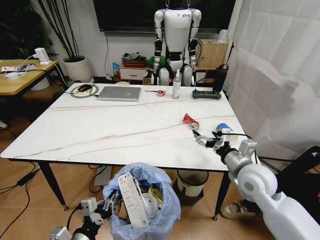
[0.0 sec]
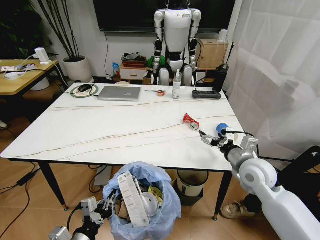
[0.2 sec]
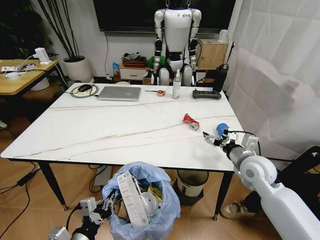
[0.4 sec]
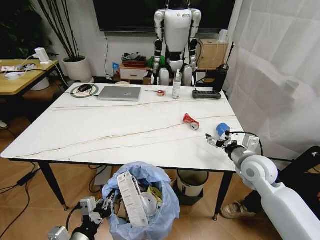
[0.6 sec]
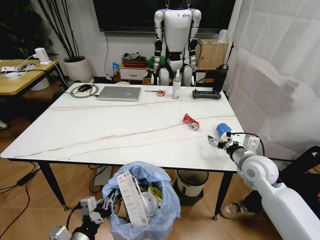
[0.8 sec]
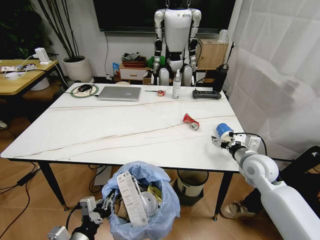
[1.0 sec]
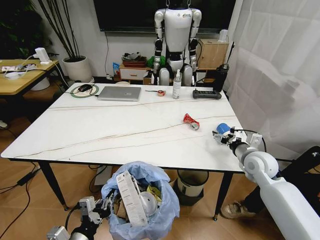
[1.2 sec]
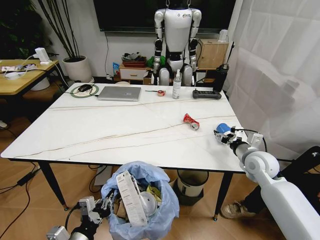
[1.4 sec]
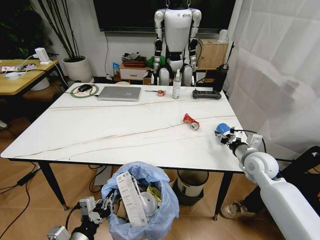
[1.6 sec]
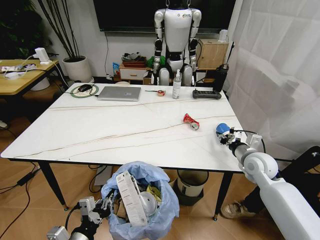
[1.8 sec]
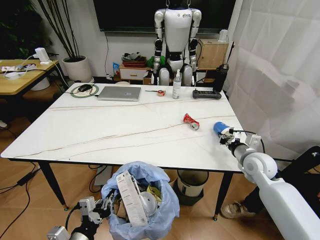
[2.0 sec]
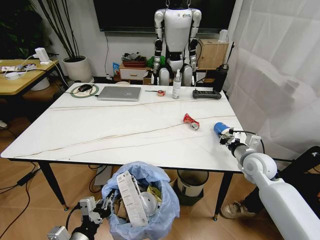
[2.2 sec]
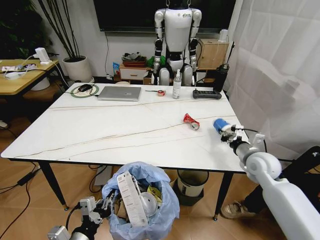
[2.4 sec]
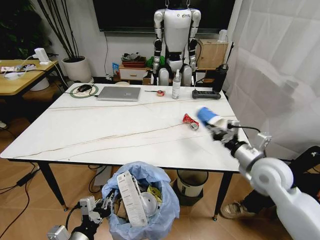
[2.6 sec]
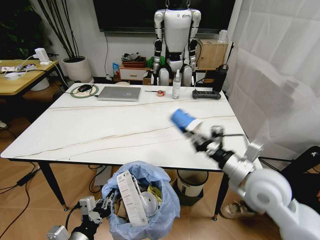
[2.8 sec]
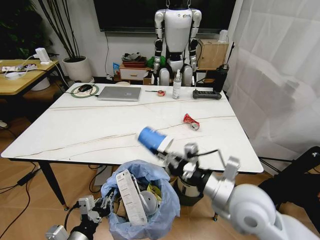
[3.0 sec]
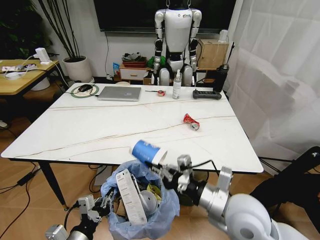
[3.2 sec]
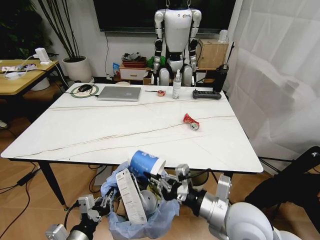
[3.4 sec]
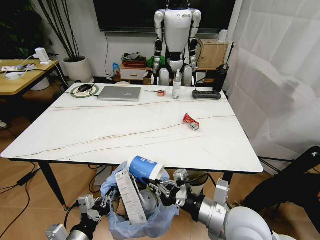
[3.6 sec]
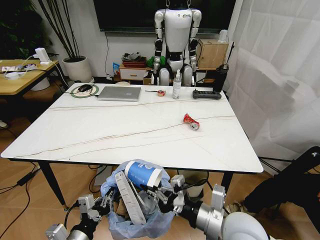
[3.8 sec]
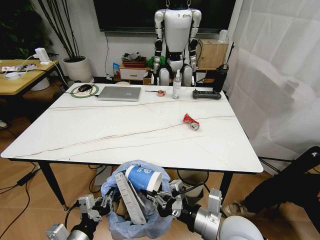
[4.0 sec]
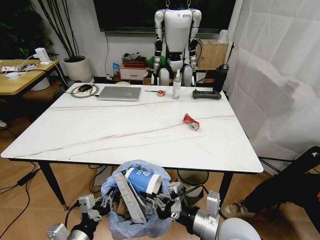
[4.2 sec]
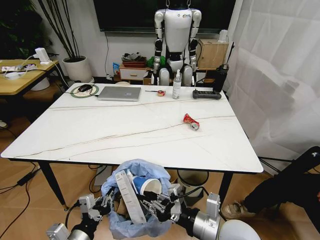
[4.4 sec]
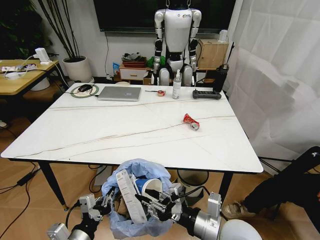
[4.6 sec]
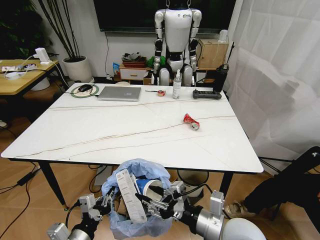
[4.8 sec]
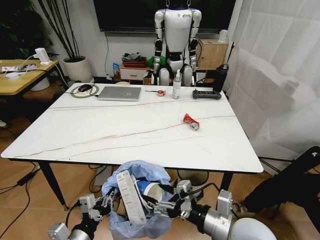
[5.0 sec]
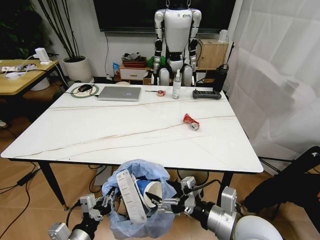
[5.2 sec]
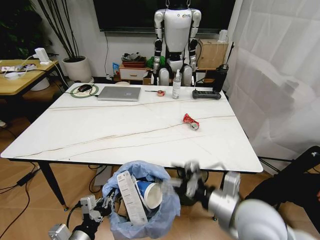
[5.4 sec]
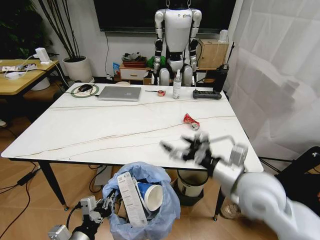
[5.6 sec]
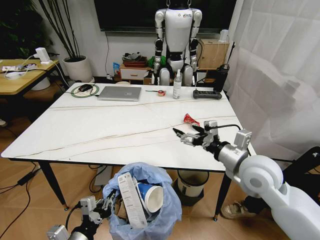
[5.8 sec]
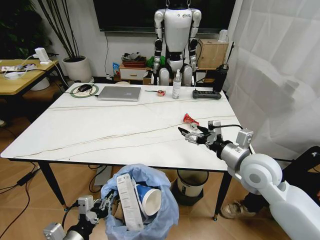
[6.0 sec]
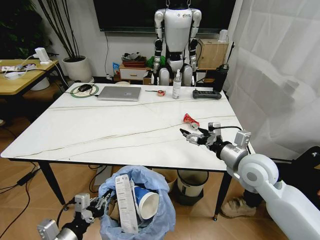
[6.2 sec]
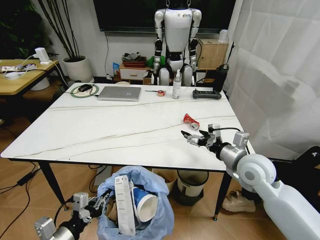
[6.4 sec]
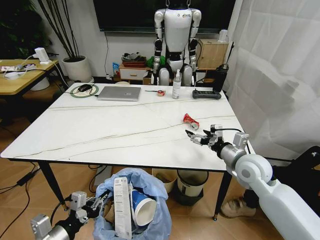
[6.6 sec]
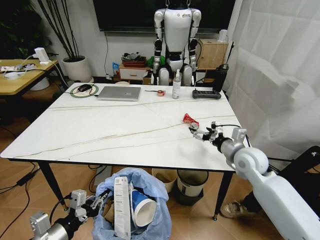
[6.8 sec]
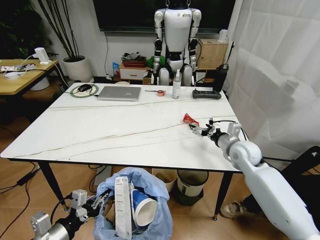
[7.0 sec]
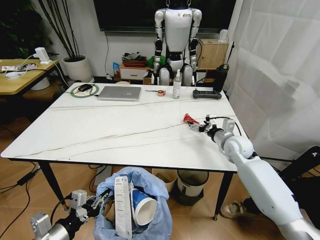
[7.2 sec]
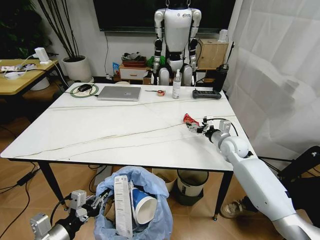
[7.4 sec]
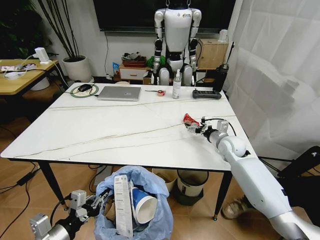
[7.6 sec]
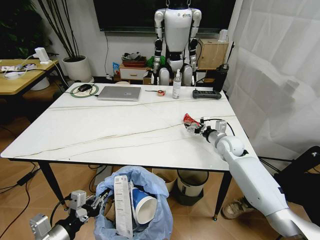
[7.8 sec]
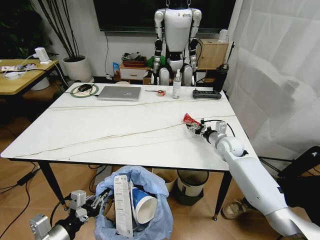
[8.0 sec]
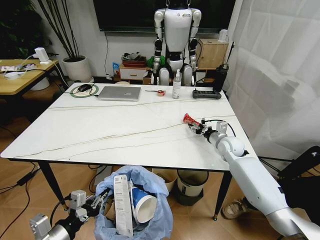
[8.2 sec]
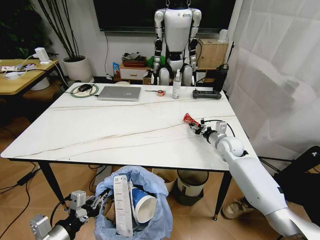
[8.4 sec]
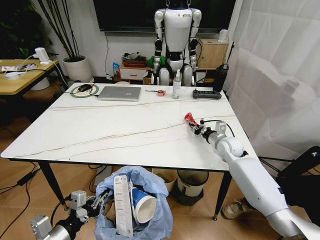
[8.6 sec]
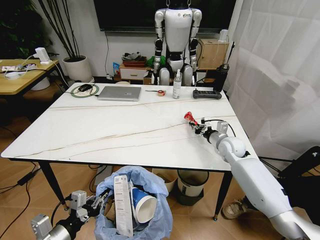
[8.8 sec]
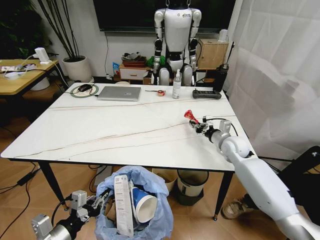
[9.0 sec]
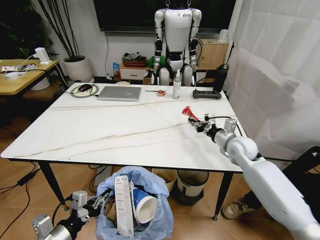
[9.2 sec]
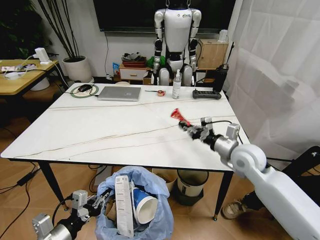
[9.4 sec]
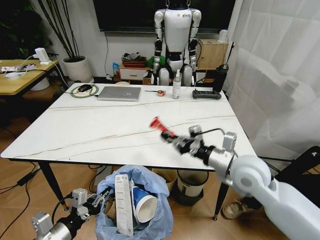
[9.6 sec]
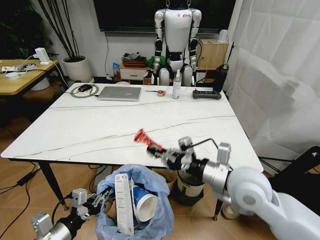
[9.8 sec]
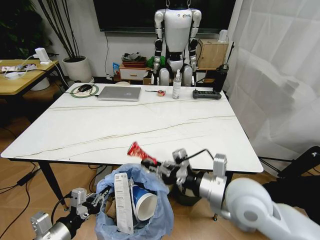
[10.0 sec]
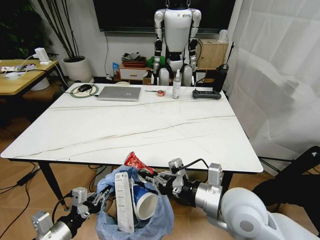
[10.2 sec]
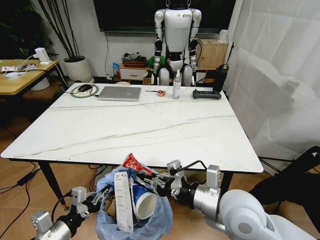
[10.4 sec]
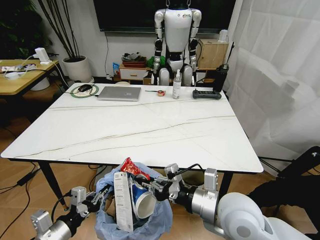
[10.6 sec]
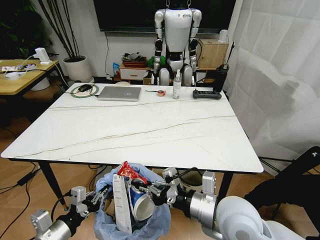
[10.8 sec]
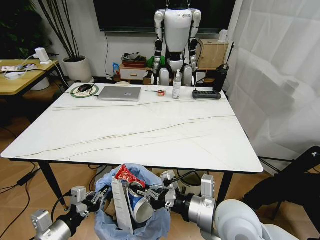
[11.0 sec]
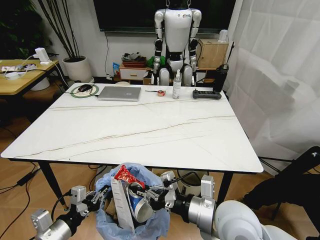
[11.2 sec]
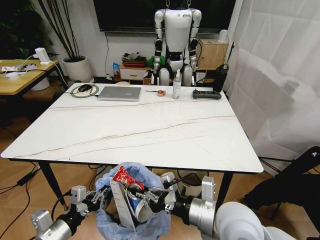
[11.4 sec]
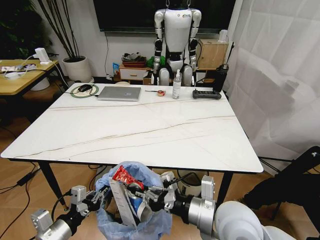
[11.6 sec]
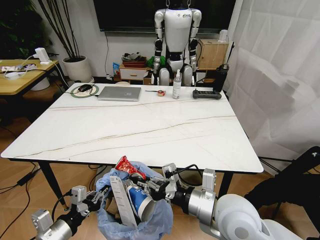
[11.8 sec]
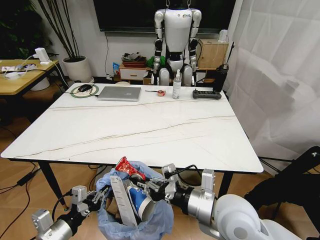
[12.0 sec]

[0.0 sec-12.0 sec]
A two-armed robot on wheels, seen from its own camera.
Task of the whole recording: Pick up the trash bin and place the trash from the table into it.
0.0 sec to 1.6 sec: The right gripper goes about 10 cm forward and to the right, and closes its fingers.
1.6 sec to 3.0 sec: The right gripper goes about 20 cm backward, to the left and upward, and closes its fingers.
3.0 sec to 4.4 sec: The right gripper moves backward and downward, about 10 cm.
4.4 sec to 6.0 sec: The right gripper heads forward, to the right and upward, covering approximately 20 cm, and opens its fingers.
6.0 sec to 7.6 sec: The right gripper is displaced forward and downward by approximately 20 cm; the left gripper changes place by some 5 cm.
7.6 sec to 9.0 sec: The right gripper closes its fingers.
9.0 sec to 10.4 sec: The right gripper is displaced backward and to the left by roughly 30 cm.
10.4 sec to 12.0 sec: The grippers make only small movements.

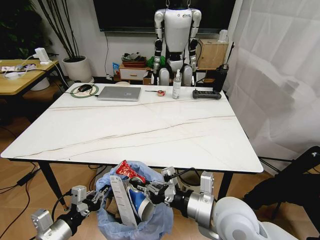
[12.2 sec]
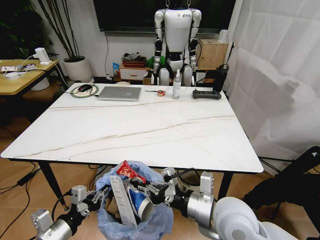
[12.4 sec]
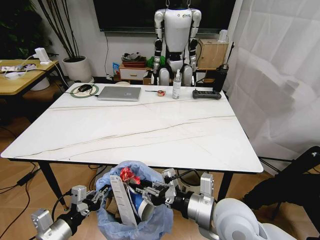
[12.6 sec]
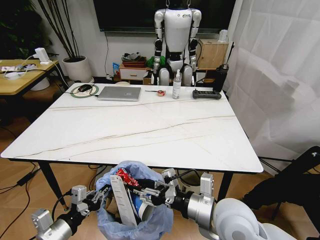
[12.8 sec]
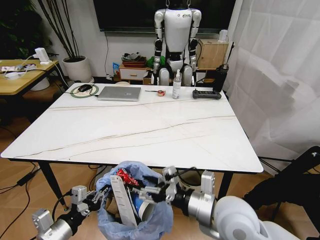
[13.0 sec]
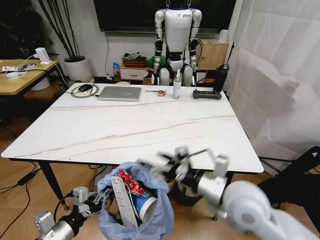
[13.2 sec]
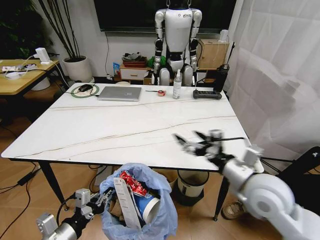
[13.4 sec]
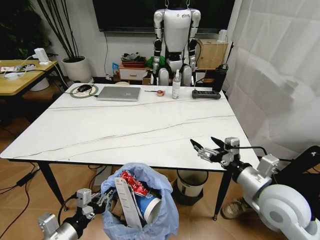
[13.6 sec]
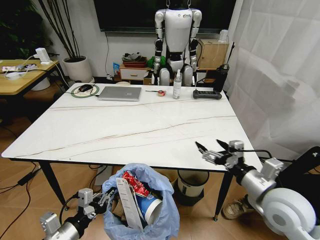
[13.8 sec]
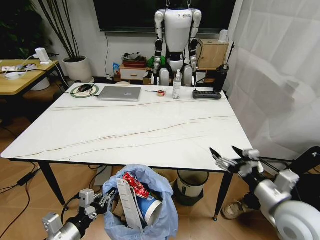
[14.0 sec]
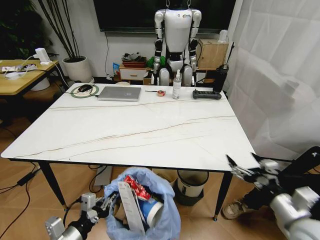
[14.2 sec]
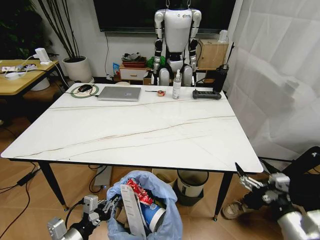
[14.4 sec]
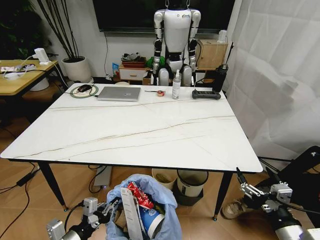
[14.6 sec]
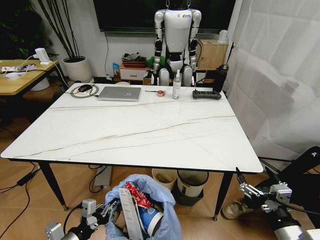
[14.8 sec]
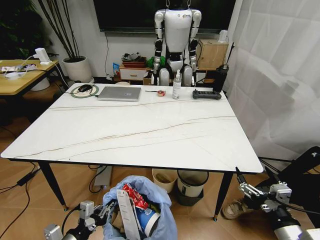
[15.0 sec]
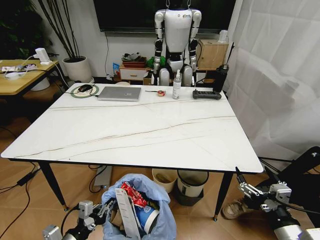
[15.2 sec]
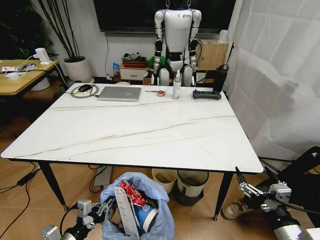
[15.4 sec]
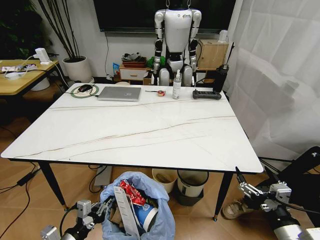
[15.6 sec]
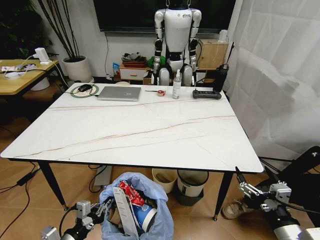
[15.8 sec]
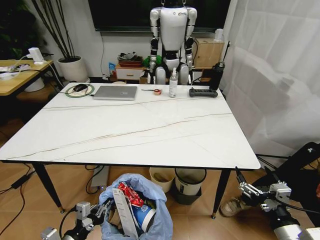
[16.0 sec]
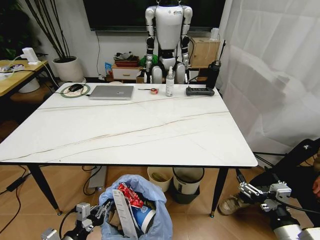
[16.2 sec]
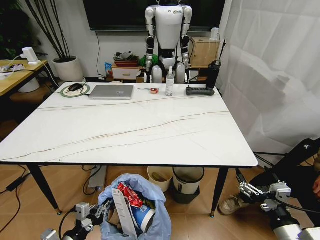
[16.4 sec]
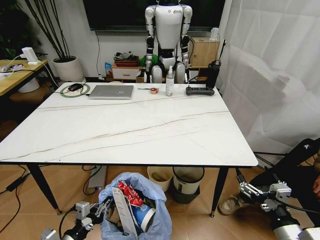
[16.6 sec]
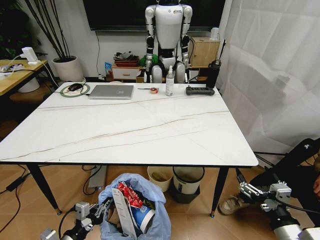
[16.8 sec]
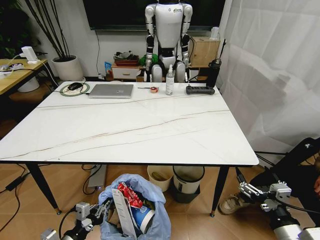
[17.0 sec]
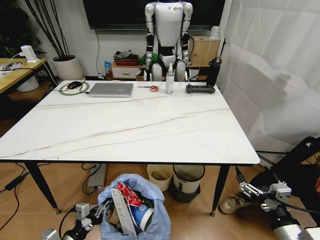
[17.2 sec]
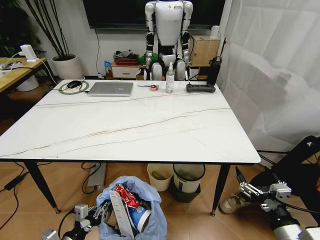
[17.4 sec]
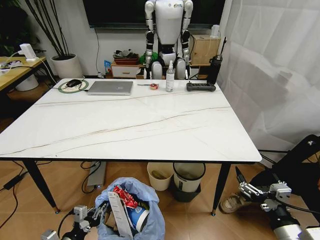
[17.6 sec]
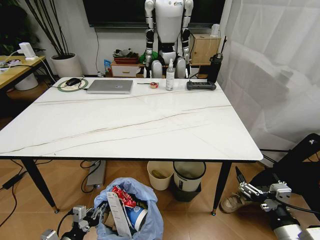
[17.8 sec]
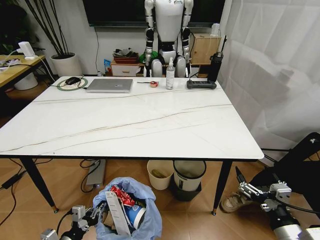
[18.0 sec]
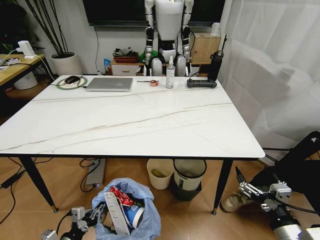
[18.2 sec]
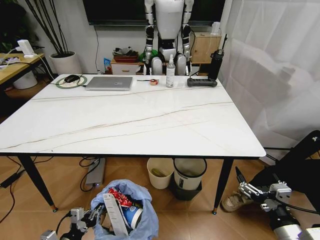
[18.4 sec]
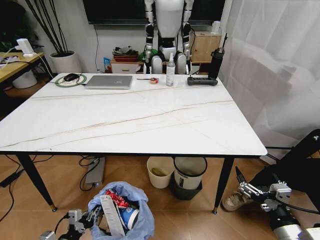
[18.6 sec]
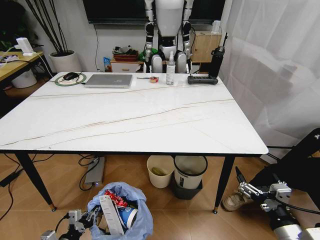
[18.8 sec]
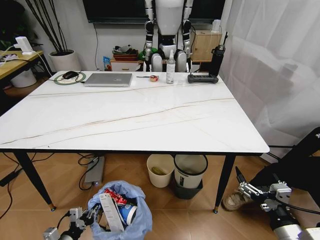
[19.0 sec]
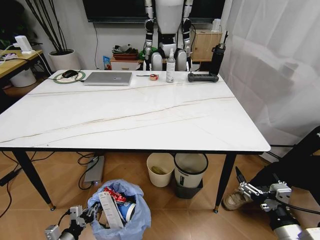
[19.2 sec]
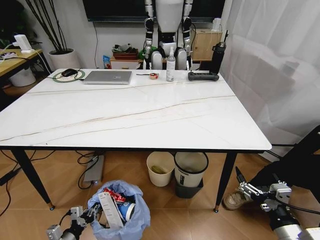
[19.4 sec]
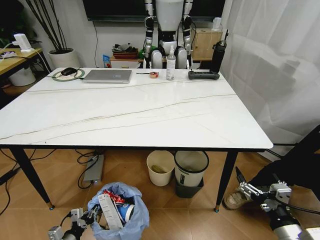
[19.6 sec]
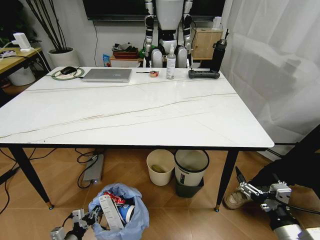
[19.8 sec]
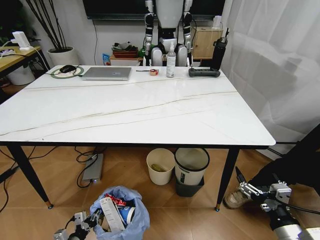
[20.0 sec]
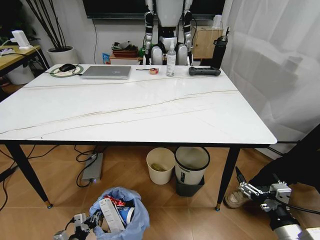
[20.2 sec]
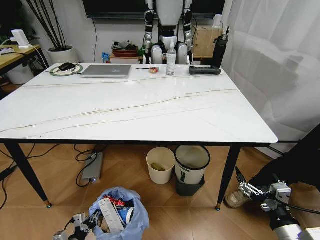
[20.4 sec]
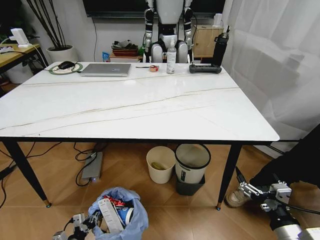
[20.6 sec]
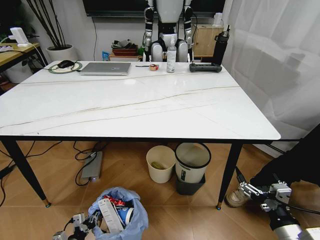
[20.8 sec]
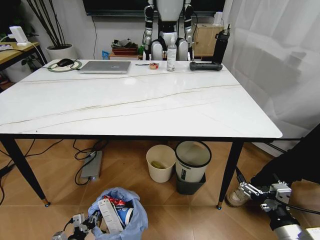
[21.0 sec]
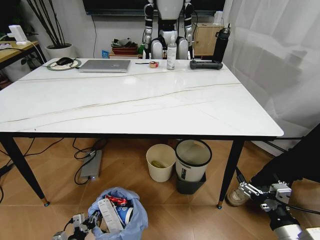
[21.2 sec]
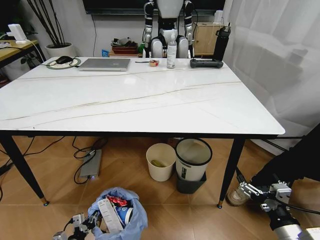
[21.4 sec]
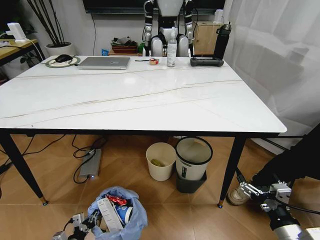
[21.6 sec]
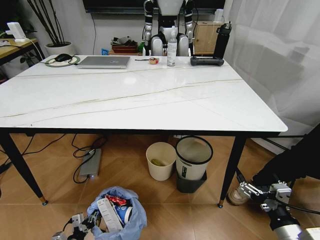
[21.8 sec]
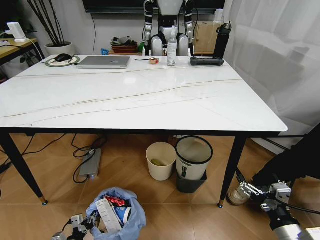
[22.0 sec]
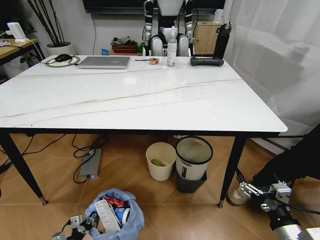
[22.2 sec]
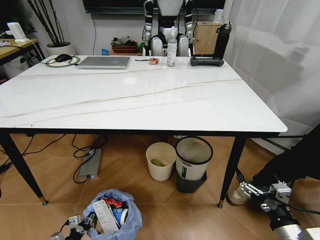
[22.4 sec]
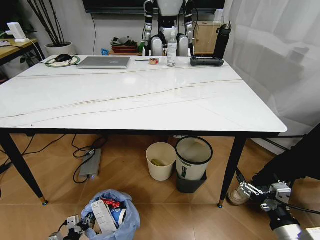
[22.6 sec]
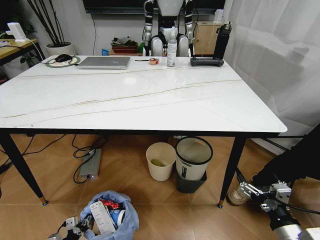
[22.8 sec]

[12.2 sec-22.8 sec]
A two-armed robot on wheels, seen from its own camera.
Task of the whole recording: Pick up the trash bin and place the trash from the table into it.
12.2 sec to 13.8 sec: The right gripper goes about 15 cm to the right, and opens its fingers.
13.8 sec to 15.2 sec: The right gripper is displaced backward and downward by some 15 cm. Meanwhile the left gripper ends up some 5 cm from where it was.
16.8 sec to 18.2 sec: The left gripper shifts by about 5 cm.
18.2 sec to 19.8 sec: The left gripper is displaced downward by roughly 10 cm.
21.2 sec to 22.8 sec: The grippers make only small movements.
